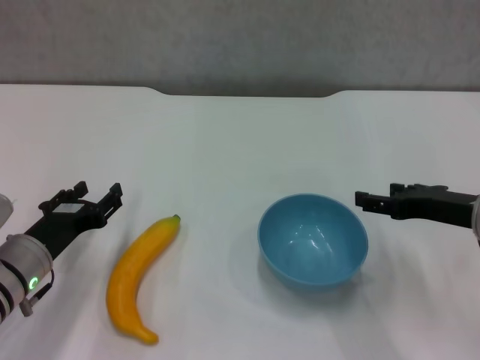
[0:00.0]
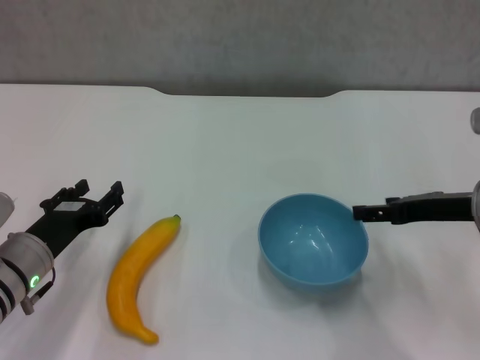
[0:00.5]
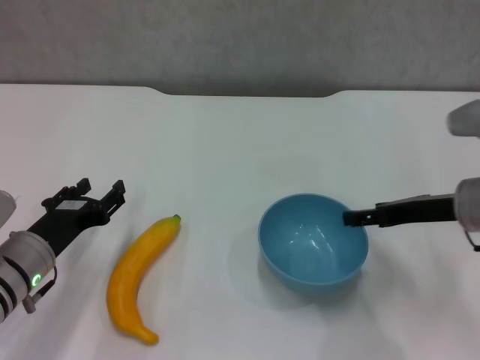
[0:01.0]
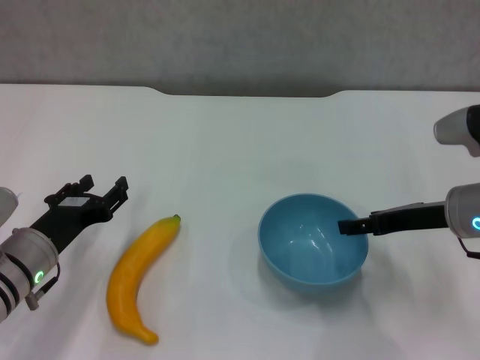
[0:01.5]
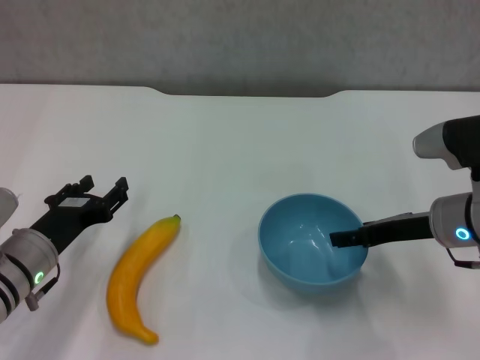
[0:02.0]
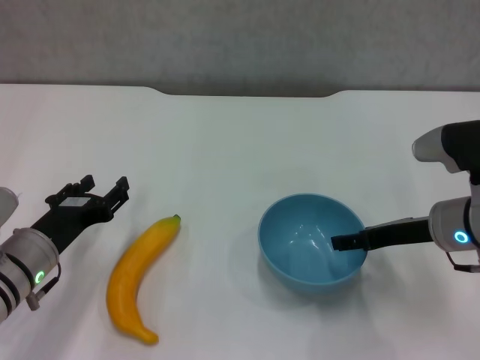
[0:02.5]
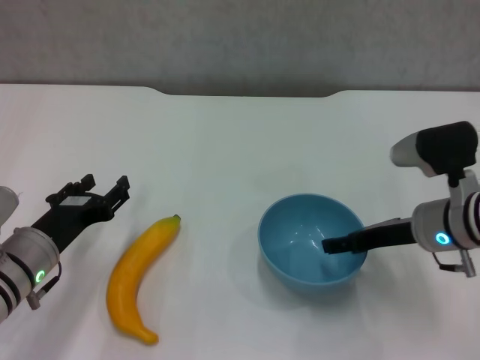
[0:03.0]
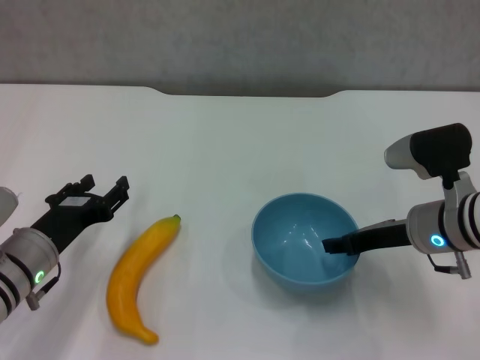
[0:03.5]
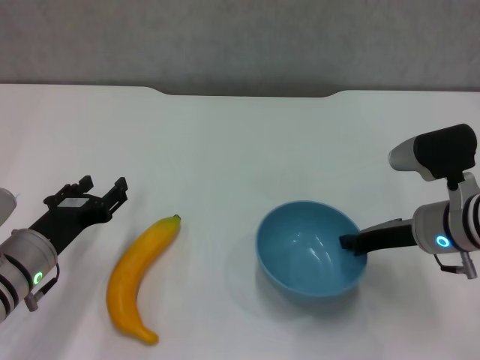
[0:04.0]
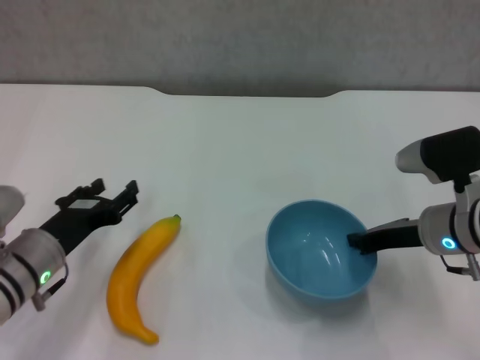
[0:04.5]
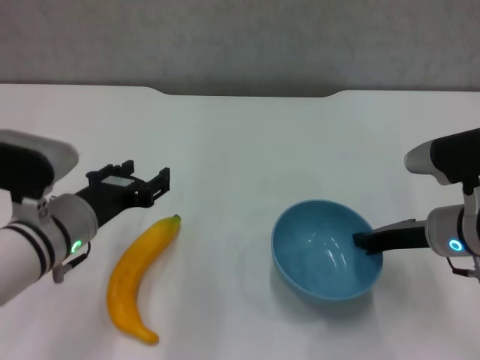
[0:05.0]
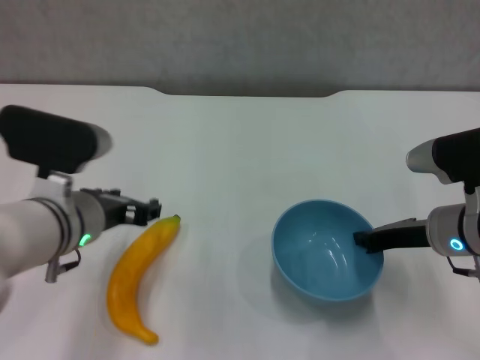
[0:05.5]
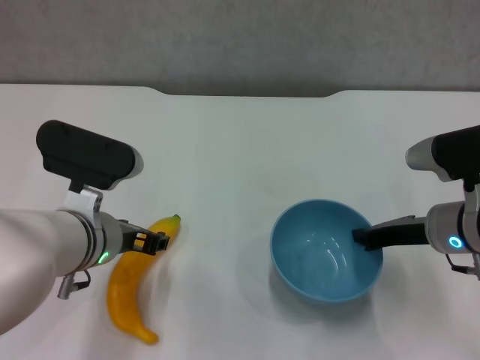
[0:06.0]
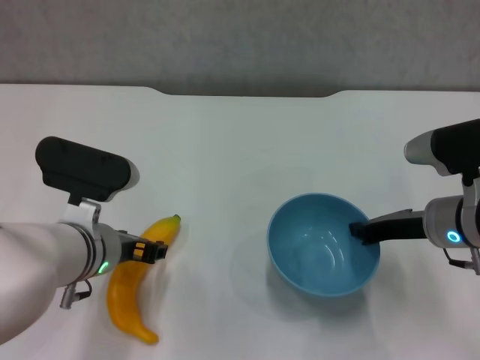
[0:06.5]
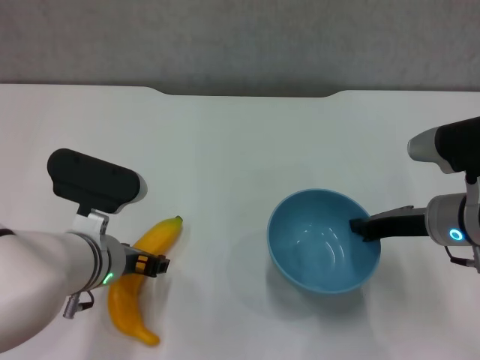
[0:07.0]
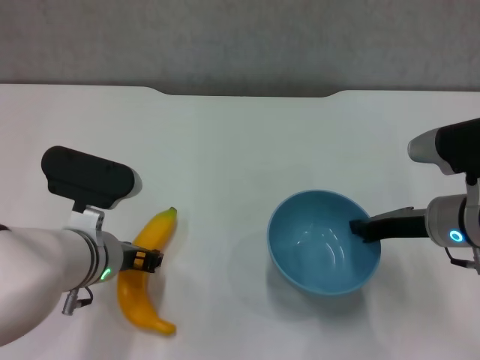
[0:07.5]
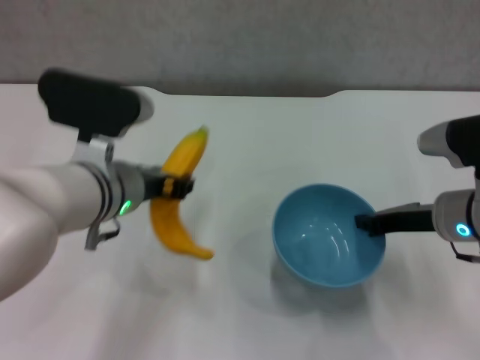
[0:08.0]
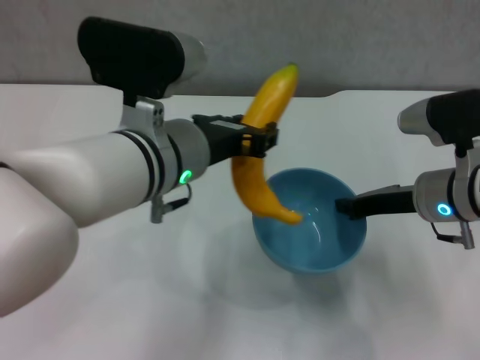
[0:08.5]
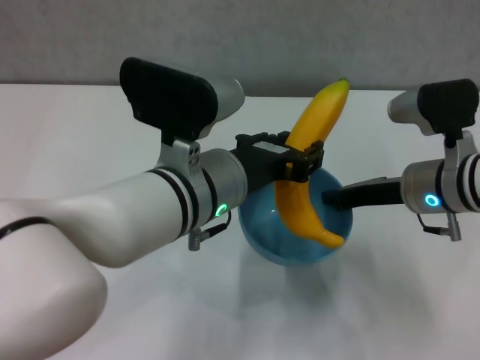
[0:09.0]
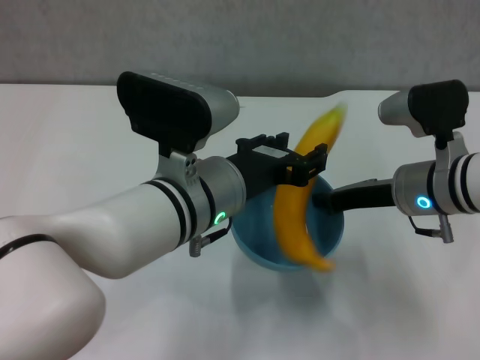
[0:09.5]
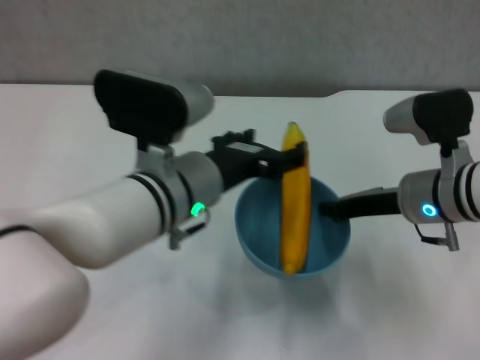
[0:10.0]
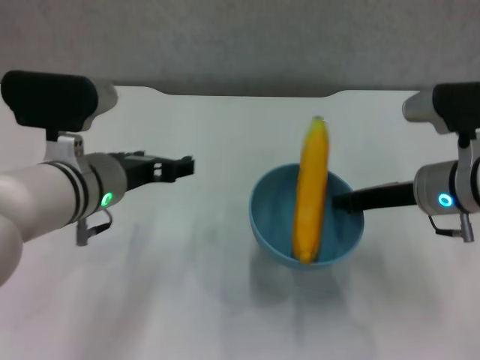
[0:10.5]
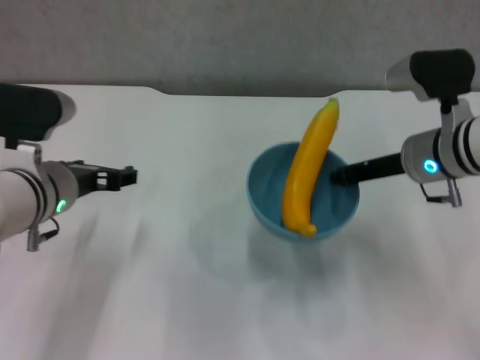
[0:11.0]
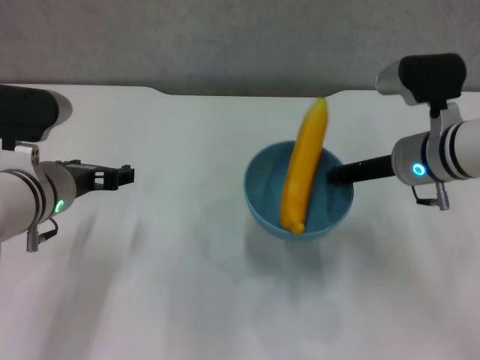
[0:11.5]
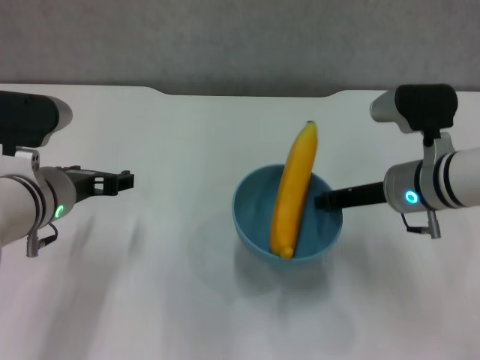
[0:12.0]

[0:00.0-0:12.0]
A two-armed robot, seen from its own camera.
Step, 0:00.0 to 0:04.0: Grasp the blue bowl with right gripper.
Step, 0:05.0 to 0:07.0: Grasp the banana with left gripper.
Step, 0:07.5 to 0:10.0: Place the banana in the blue bowl with left gripper.
0:00.0 to 0:02.0: The grippers stay close to where they were, moving slightly.
0:02.0 to 0:04.0: The right gripper closes up.
0:04.0 to 0:06.0: The left gripper moves to the right and upward, approximately 10 cm.
0:06.0 to 0:08.0: The left gripper closes its fingers.
0:08.0 to 0:10.0: The left gripper shifts some 5 cm to the right, and opens up.
0:10.0 to 0:12.0: The left gripper moves to the left, roughly 15 cm.

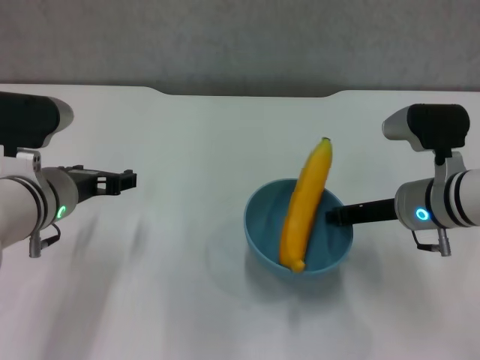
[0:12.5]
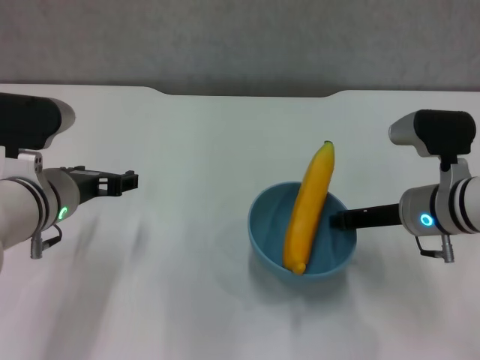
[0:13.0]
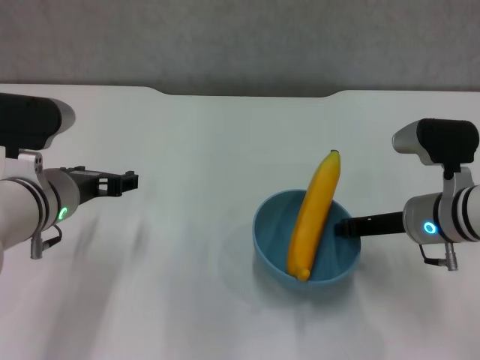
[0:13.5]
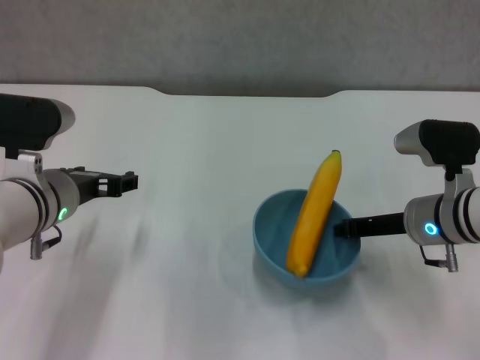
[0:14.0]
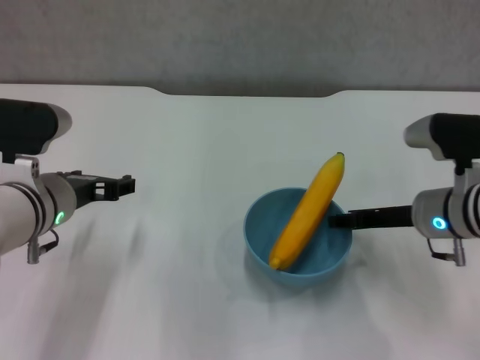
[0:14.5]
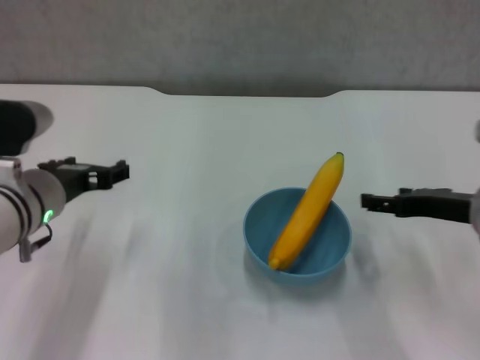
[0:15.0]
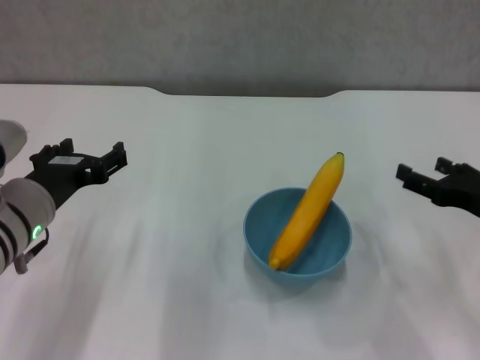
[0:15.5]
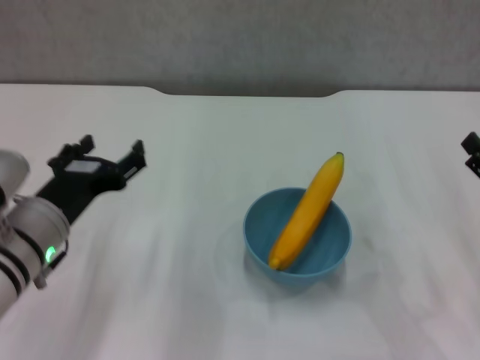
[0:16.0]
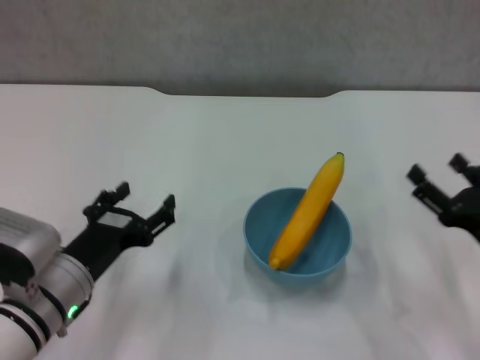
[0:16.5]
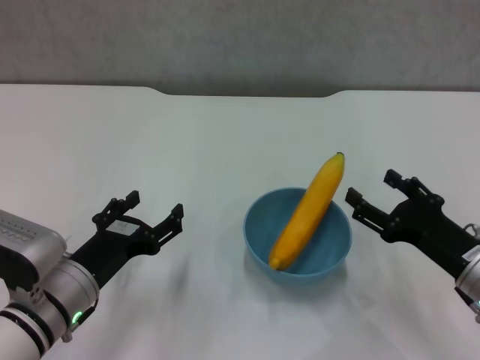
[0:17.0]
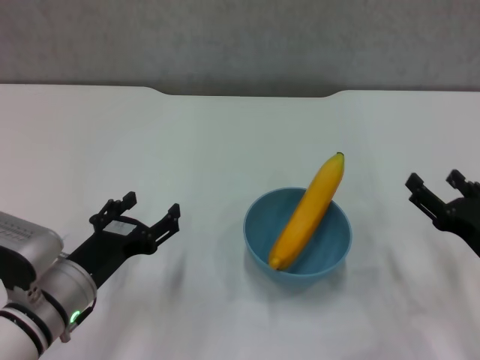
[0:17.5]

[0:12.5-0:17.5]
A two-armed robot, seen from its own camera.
Step, 0:12.5 to 0:14.5: Place the bowl on the table with right gripper.
0:12.5 to 0:15.0: The right gripper moves to the right, some 5 cm, and opens.
0:15.0 to 0:17.5: The right gripper moves backward and downward, some 10 cm. Meanwhile the left gripper moves downward and backward, roughly 10 cm.

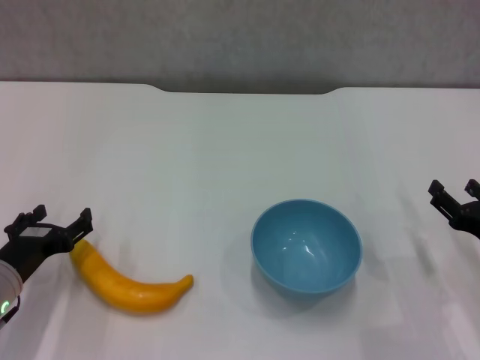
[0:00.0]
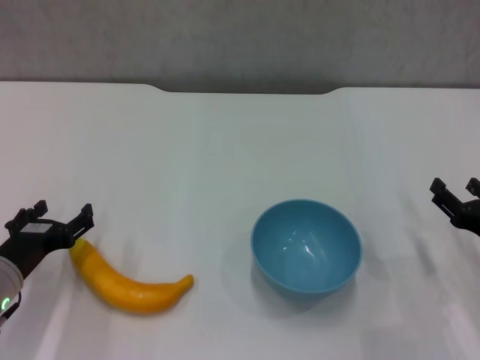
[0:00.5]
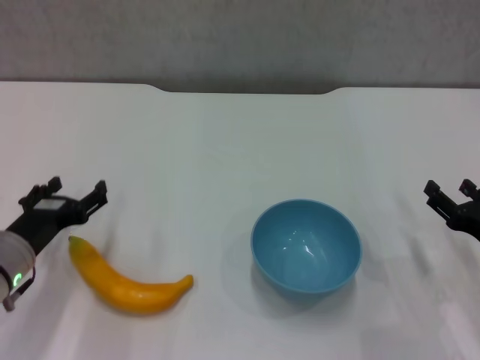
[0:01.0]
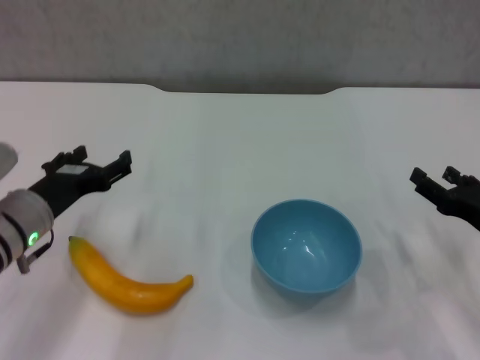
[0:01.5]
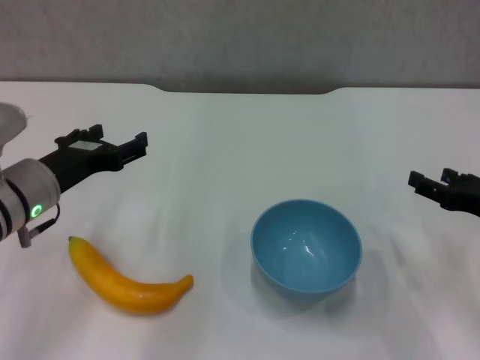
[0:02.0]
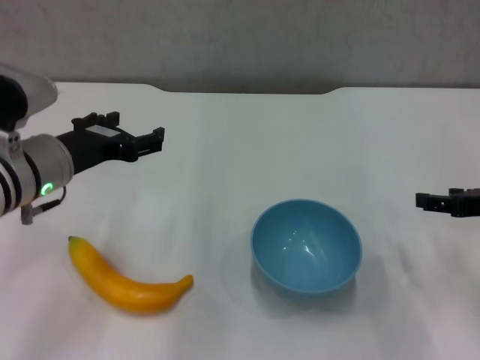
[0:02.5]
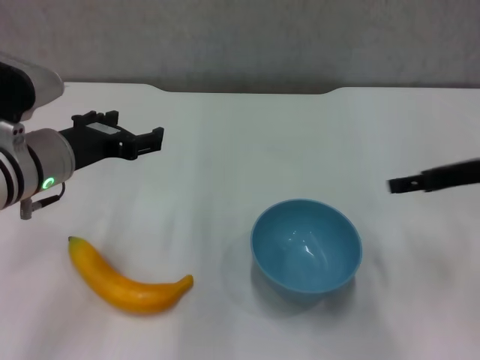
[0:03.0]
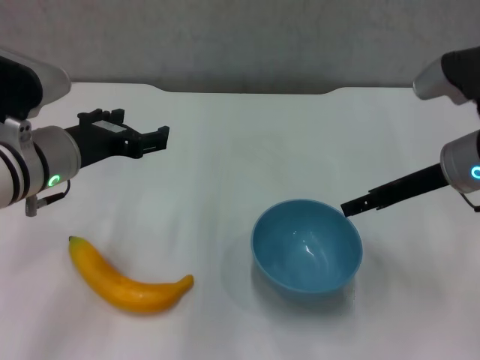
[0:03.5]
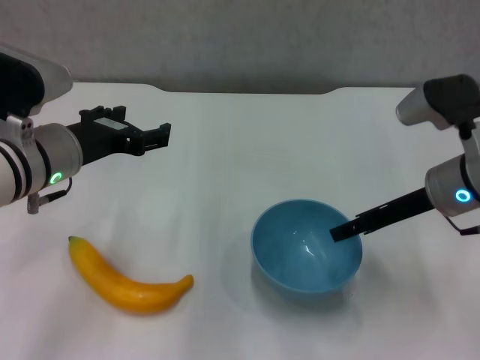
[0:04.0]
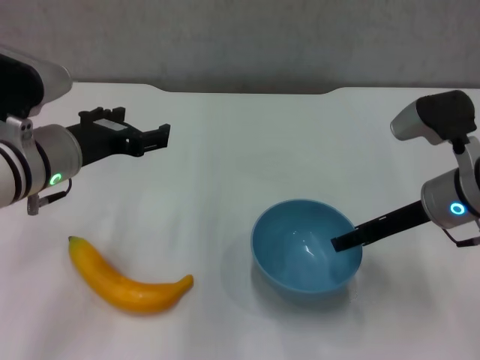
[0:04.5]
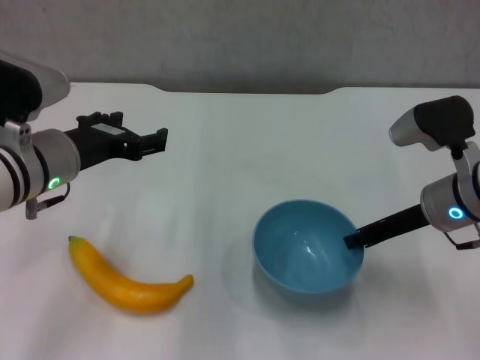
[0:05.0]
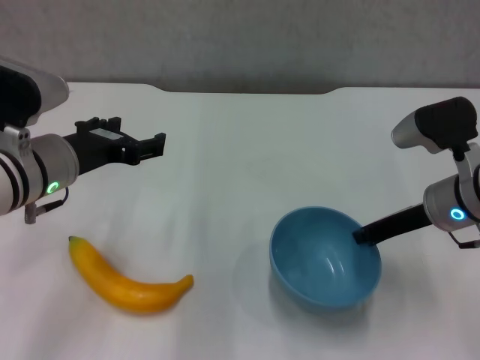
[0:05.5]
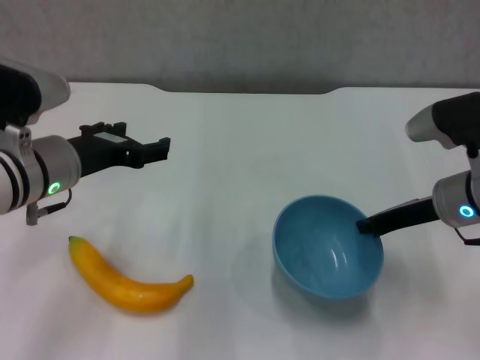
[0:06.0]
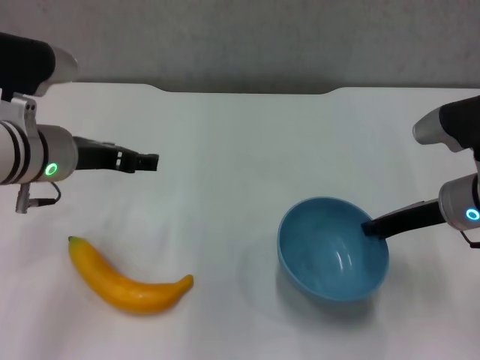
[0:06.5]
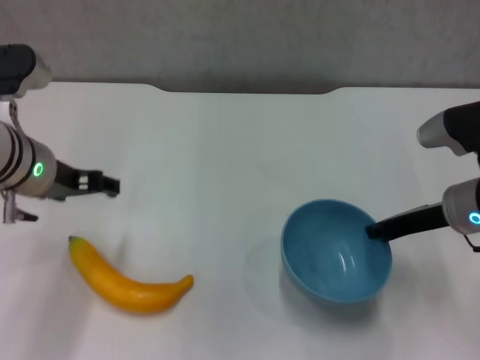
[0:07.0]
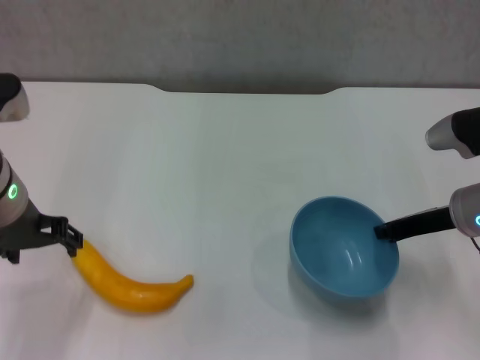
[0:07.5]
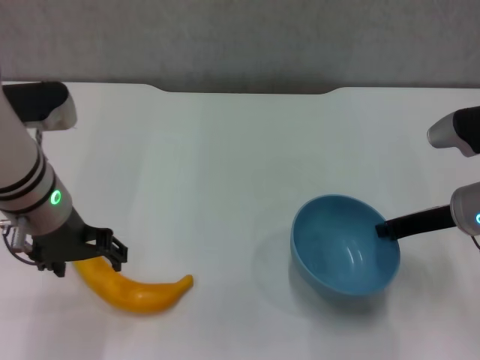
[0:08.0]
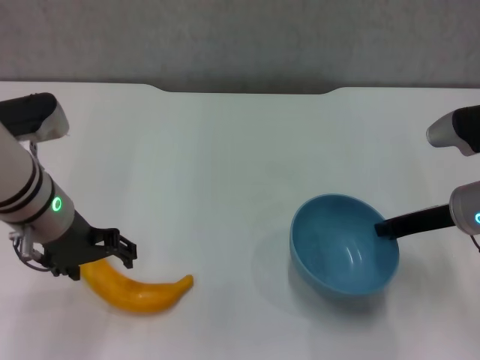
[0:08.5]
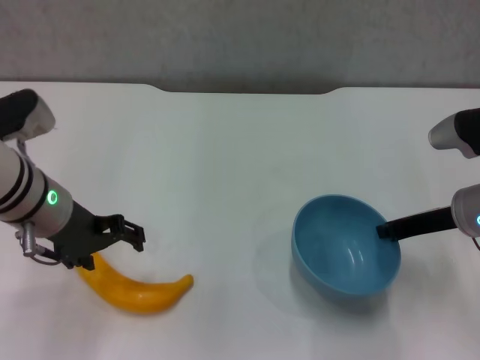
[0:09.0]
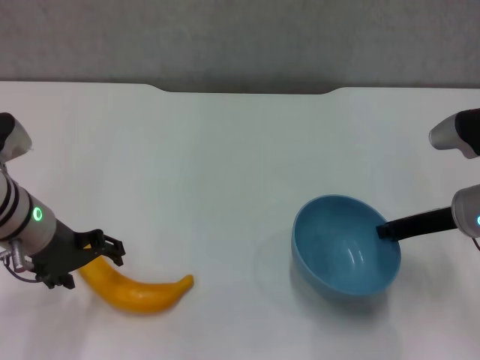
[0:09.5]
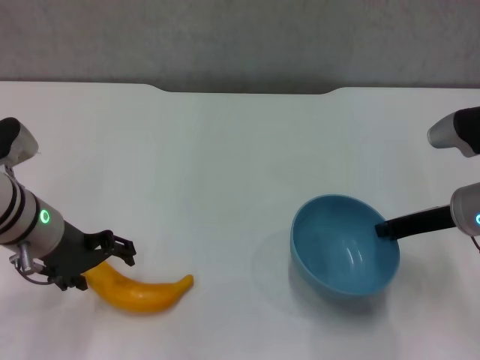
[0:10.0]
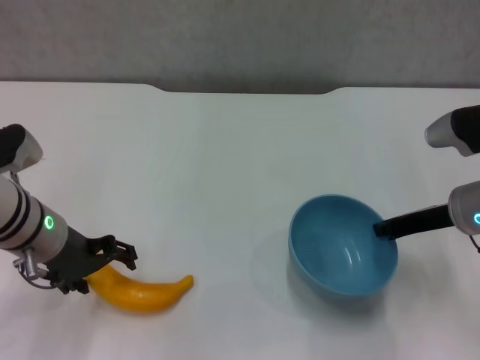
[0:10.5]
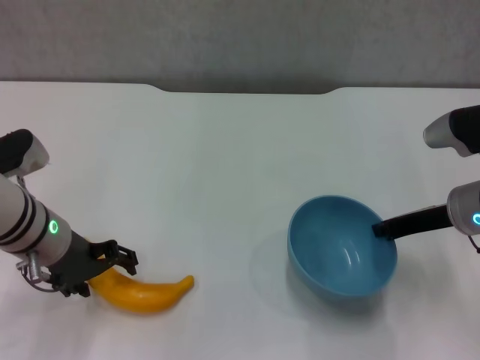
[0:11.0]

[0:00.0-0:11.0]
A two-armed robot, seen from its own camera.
Step, 0:00.0 to 0:05.0: Grasp the blue bowl with right gripper.
Step, 0:05.5 to 0:06.0: Lift the blue bowl with right gripper.
0:00.0 to 0:02.0: The right gripper travels upward by some 5 cm. The left gripper goes approximately 10 cm upward and forward.
0:02.0 to 0:03.5: The left gripper shifts by about 5 cm. The right gripper travels forward, to the left and upward by roughly 15 cm.
0:03.5 to 0:05.5: The right gripper moves roughly 5 cm, and closes.
0:07.5 to 0:09.0: There are only small adjustments of the grippers.
0:09.0 to 0:11.0: The grippers make only small movements.
